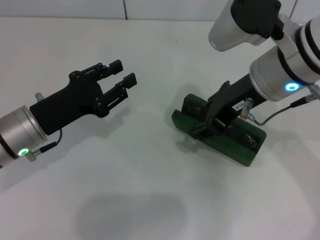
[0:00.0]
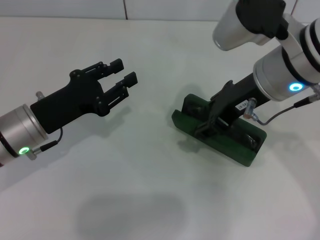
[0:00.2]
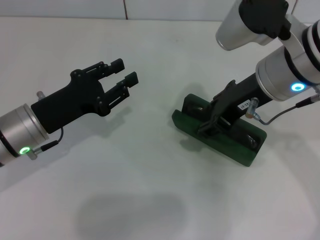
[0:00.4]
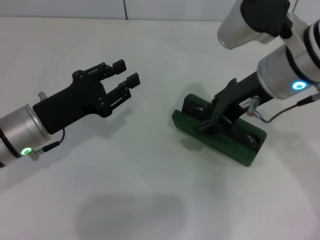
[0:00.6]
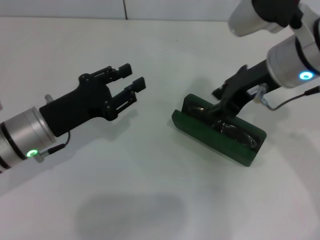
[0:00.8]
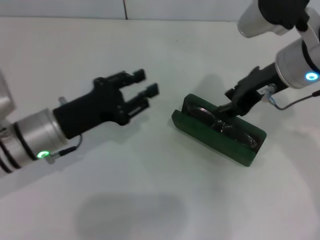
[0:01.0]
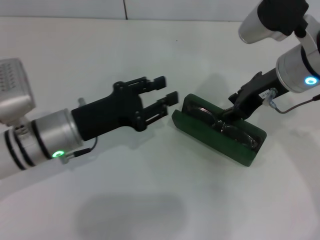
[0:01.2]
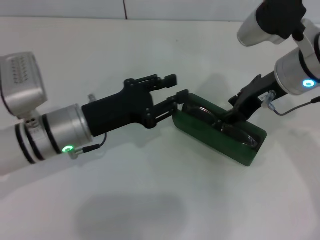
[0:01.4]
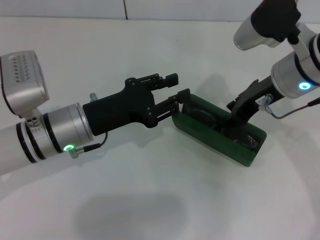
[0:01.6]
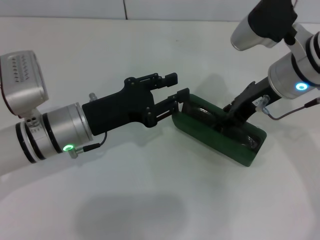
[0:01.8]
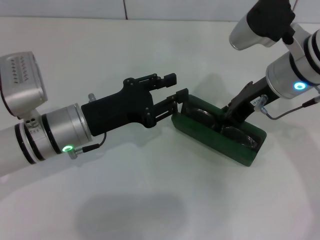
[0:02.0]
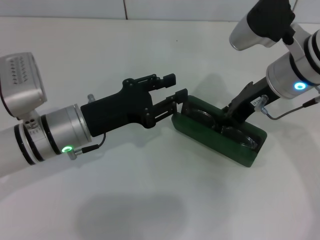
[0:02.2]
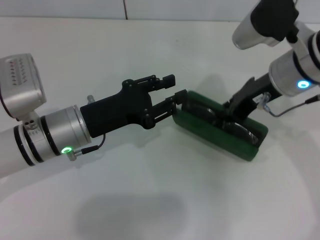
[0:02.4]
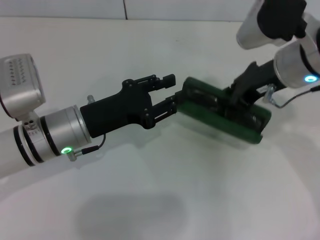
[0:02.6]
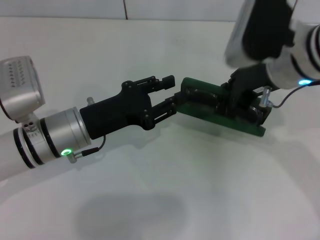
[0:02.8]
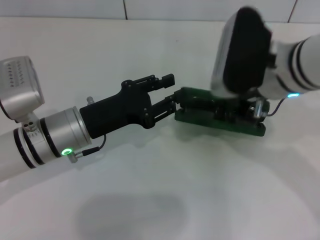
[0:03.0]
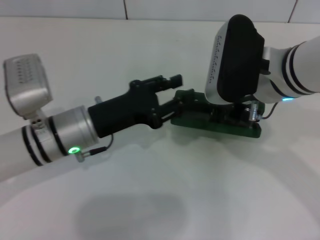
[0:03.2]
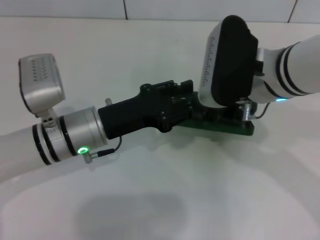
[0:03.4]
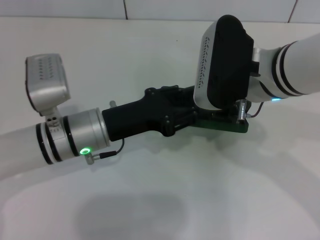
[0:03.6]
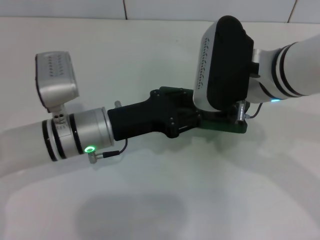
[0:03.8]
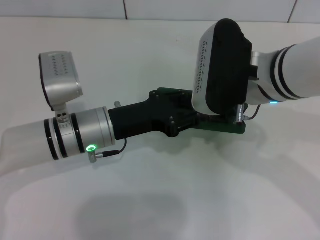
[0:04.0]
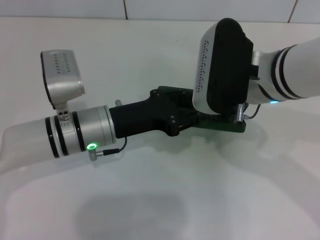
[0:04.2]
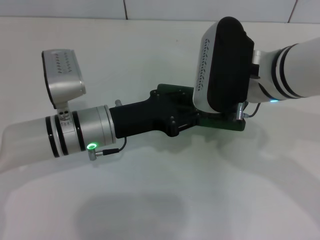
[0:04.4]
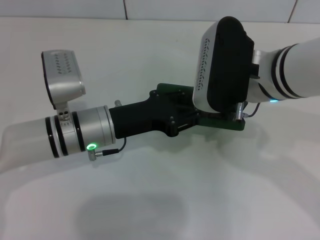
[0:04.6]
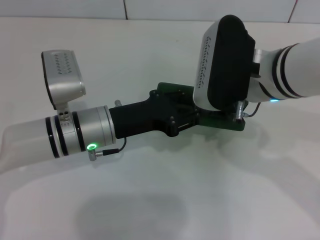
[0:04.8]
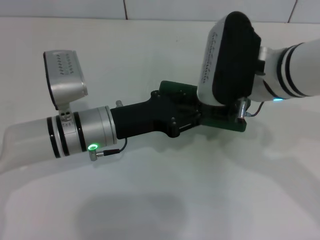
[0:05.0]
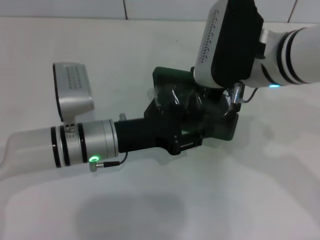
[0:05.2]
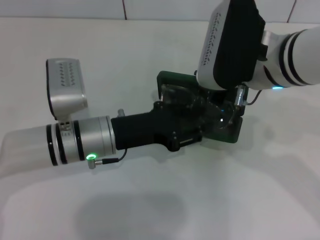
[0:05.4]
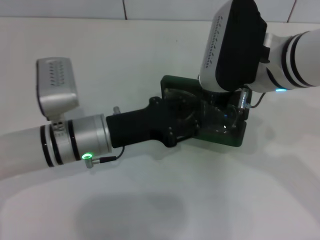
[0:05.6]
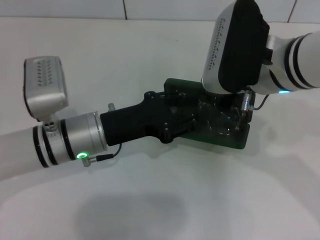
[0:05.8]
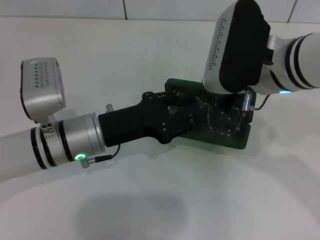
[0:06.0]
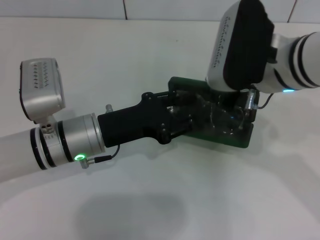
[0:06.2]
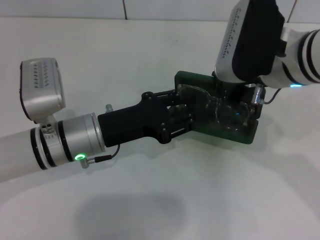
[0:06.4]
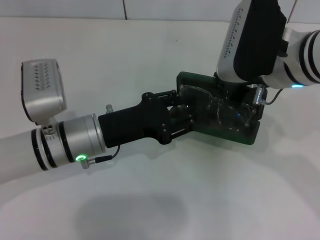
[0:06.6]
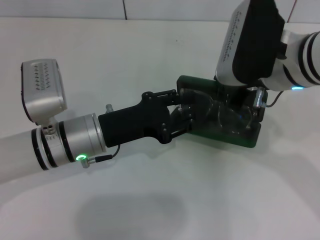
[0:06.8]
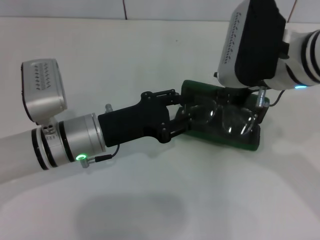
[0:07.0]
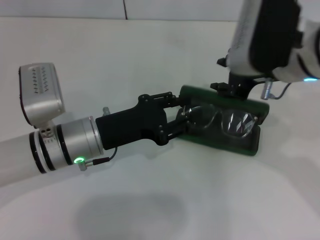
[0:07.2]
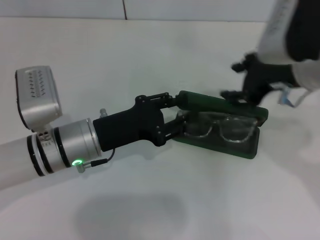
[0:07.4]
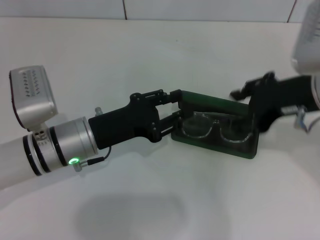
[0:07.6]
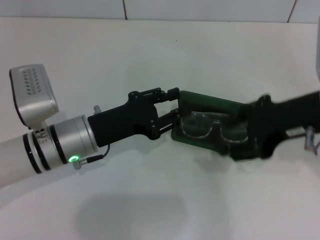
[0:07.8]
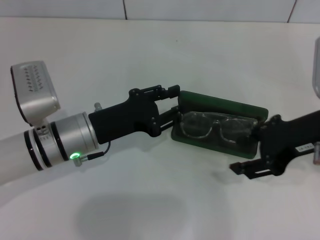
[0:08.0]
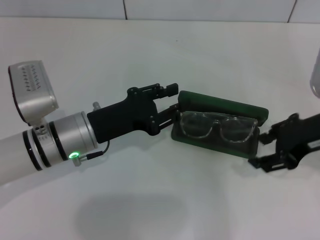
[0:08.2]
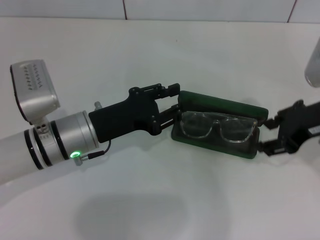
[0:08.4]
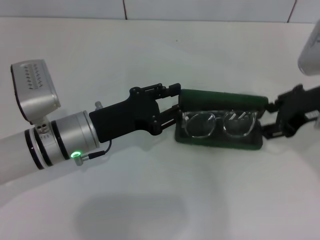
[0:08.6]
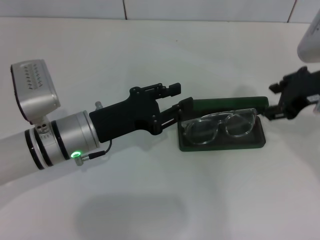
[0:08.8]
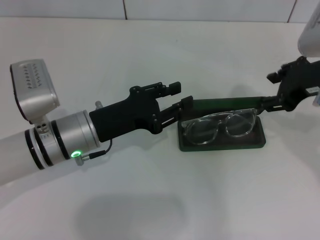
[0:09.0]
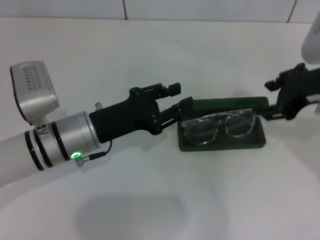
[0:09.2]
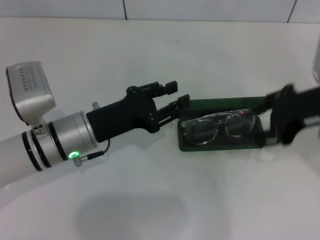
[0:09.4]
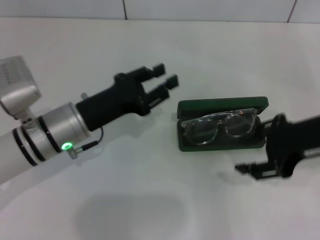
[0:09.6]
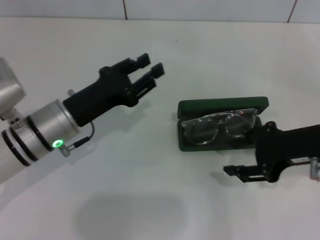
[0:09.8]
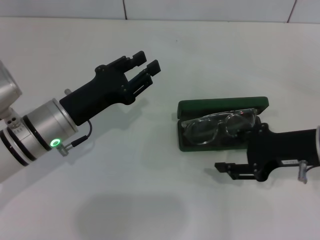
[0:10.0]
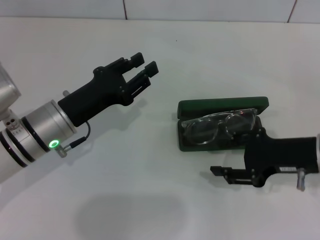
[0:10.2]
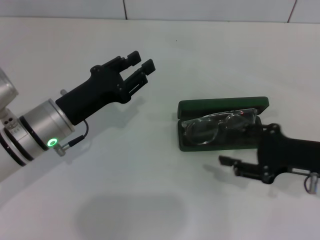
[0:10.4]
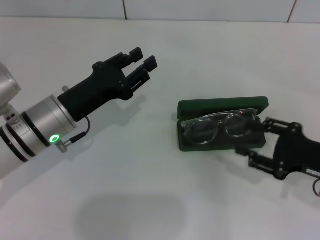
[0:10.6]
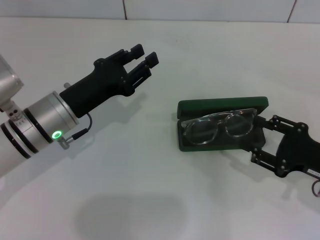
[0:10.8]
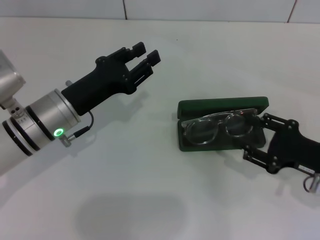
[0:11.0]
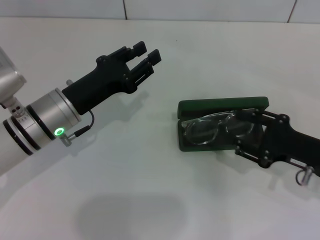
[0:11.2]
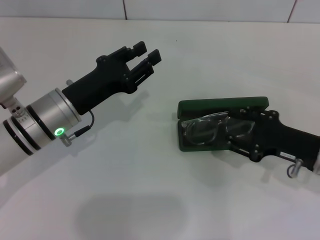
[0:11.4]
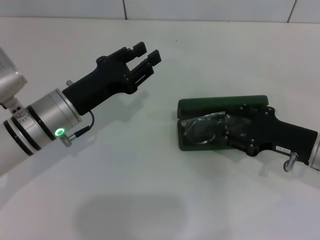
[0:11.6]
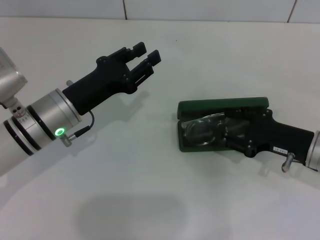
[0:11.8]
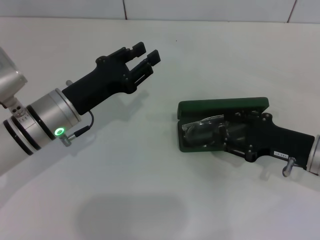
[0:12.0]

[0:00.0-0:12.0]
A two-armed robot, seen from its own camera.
0:00.0 to 0:01.6: The right gripper changes place by roughly 5 cm, while the left gripper shifts about 5 cm to the right.
0:01.6 to 0:03.0: The right gripper closes its fingers.
0:06.0 to 0:07.6: The right gripper heads to the right, covering some 5 cm, and opens.
0:07.6 to 0:09.0: The grippers make only small movements.
0:09.0 to 0:10.4: The right gripper goes approximately 15 cm downward and backward.
0:10.4 to 0:12.0: The right gripper moves roughly 5 cm.

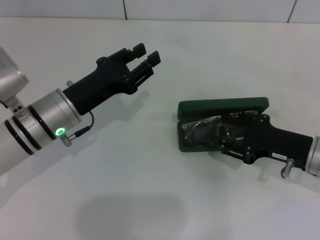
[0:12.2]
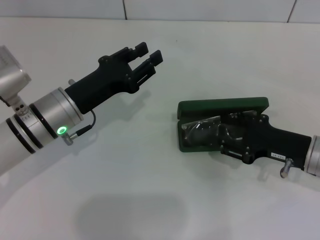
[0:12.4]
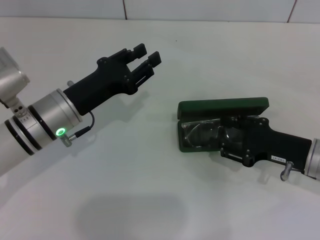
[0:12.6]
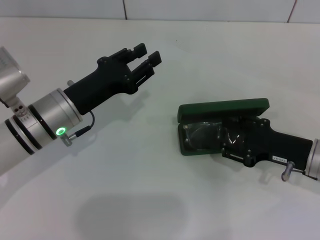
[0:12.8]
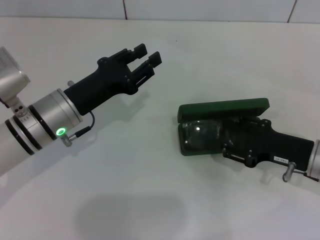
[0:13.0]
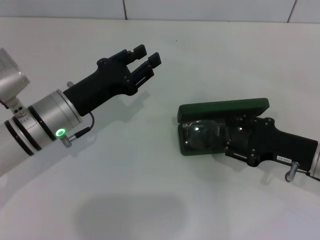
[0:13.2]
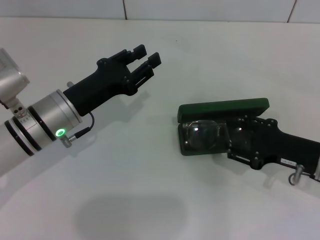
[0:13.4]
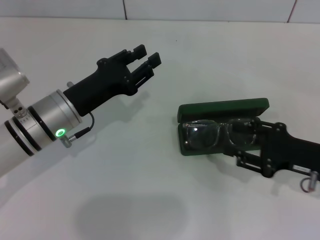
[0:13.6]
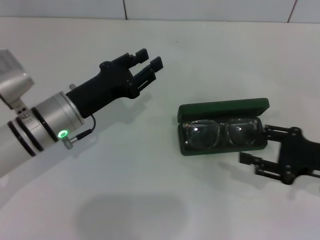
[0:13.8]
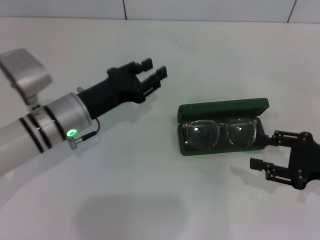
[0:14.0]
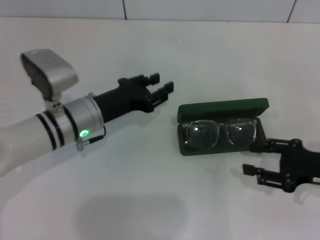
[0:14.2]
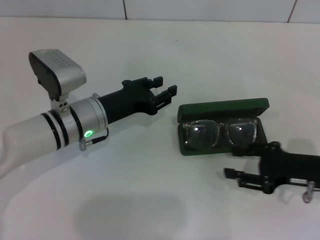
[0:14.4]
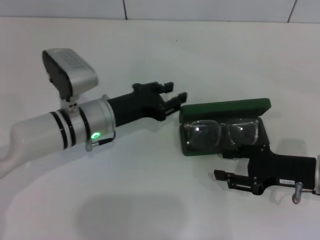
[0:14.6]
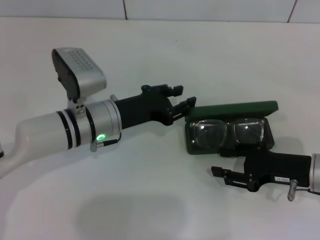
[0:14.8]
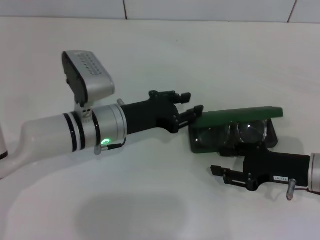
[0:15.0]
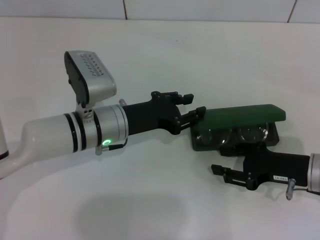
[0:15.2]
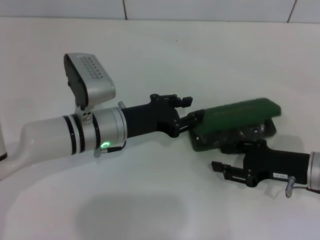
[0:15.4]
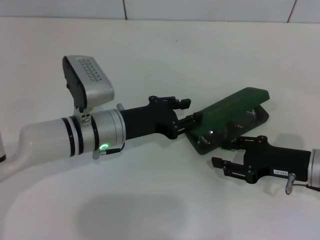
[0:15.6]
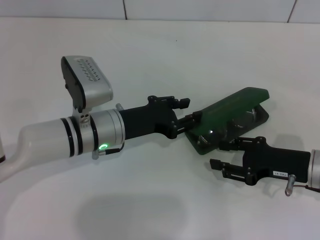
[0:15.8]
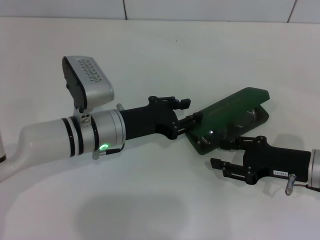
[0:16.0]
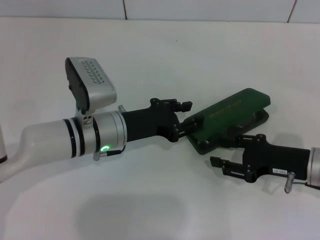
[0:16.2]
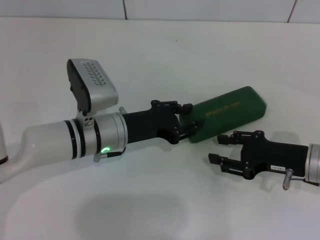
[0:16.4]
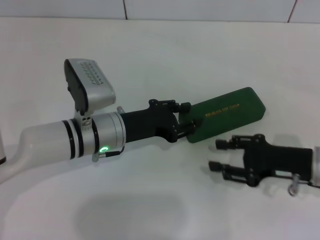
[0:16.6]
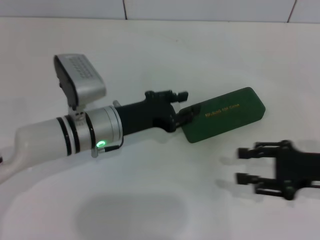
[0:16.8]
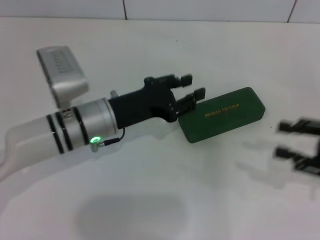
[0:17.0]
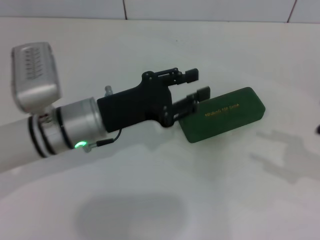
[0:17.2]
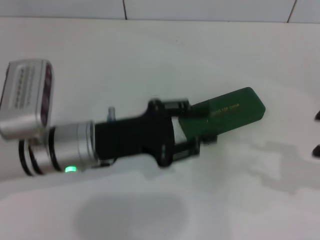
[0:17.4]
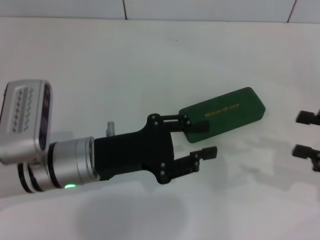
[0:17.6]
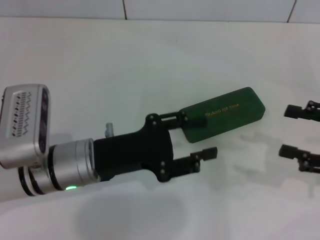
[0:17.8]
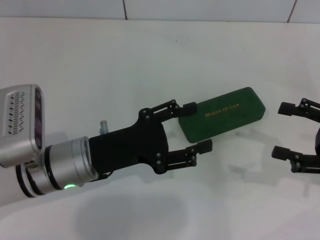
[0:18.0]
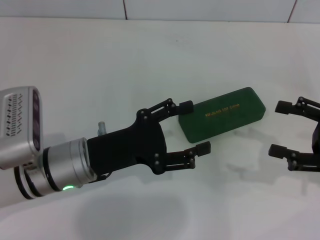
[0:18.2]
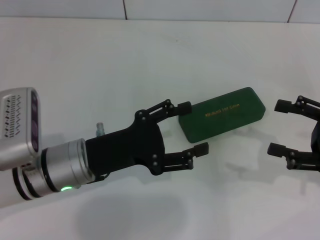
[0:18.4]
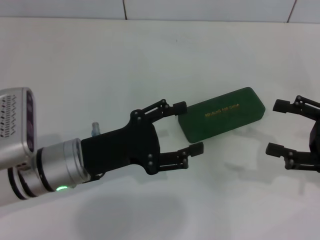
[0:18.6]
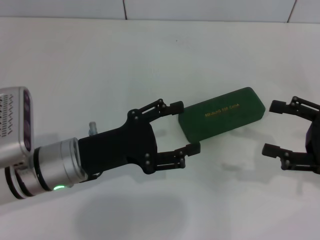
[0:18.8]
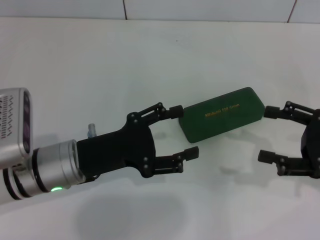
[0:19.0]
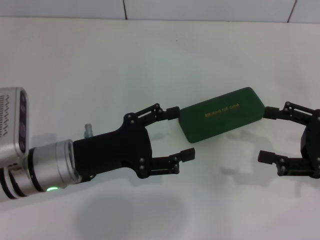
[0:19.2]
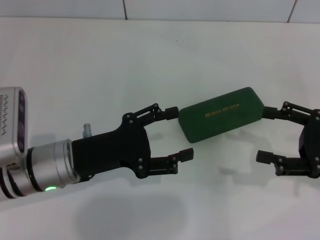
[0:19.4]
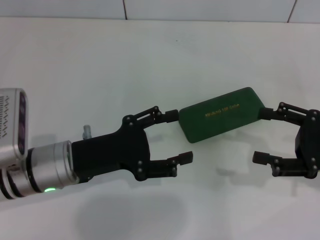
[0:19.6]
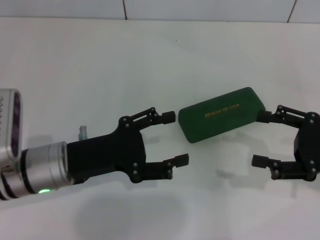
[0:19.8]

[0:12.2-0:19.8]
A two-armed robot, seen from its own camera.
Step, 0:12.2 to 0:16.2: Close the glasses case with your left hand.
0:12.2 to 0:13.8: The right gripper changes place by about 5 cm.
0:13.8 to 0:15.2: The right gripper moves about 5 cm; the left gripper travels to the right by approximately 5 cm.
0:15.2 to 0:16.8: The right gripper ends up approximately 5 cm from where it was.
0:16.8 to 0:18.2: The right gripper opens its fingers. The left gripper travels backward by some 5 cm.
0:18.2 to 0:19.8: The grippers move only a little.
